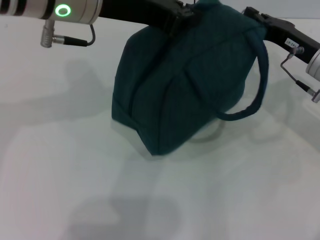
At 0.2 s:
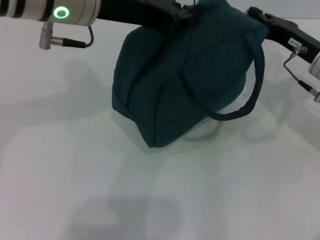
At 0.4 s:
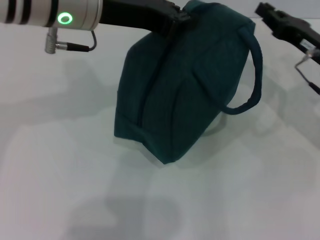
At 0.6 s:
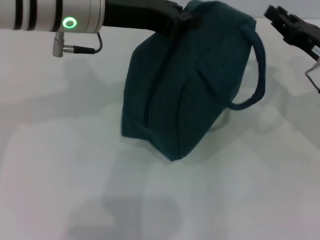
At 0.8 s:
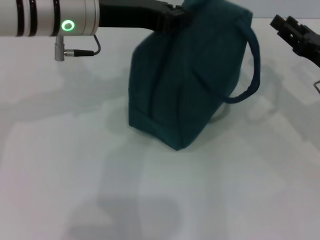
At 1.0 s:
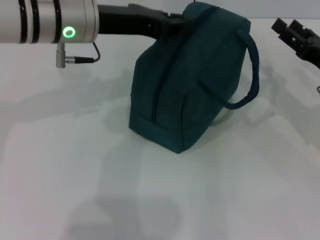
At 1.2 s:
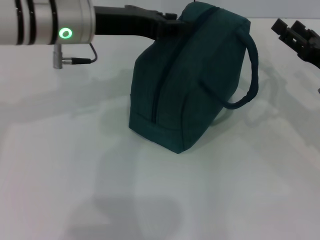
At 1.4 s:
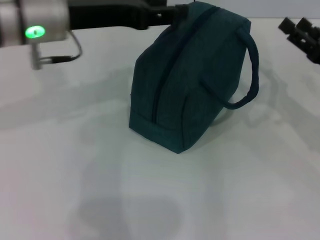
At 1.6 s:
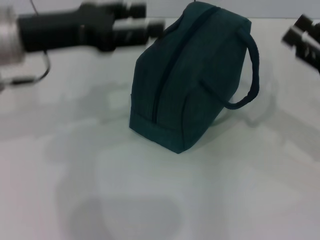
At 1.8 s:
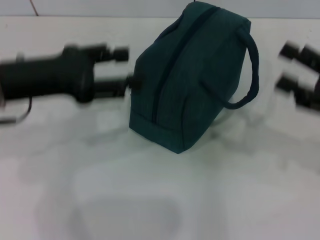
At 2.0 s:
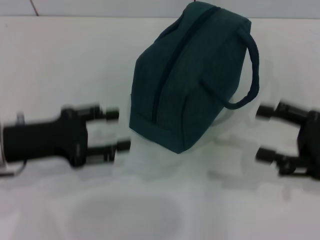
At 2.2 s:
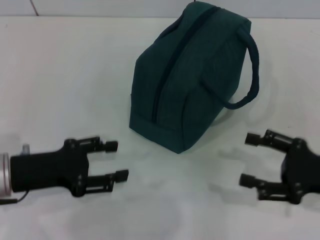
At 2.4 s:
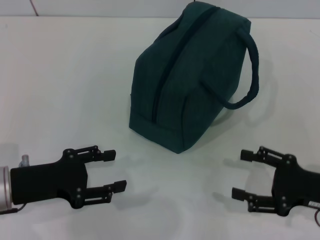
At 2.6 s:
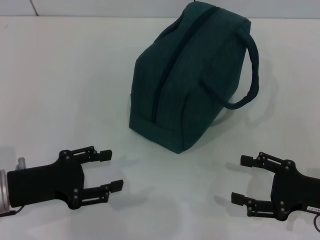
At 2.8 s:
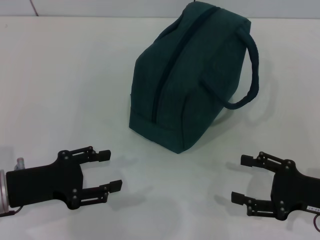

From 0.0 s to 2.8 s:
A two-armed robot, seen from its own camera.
Step, from 0.4 s to 1.0 s: Hold the lunch bag with your left hand.
From 0.0 s to 1.4 s: The right gripper goes some 10 cm backward and to the right, and opens, while the left gripper travels downward by some 5 cm, and opens its fingers.
From 1.4 s to 2.8 s: The left gripper shifts approximately 25 cm downward, backward and to the left, and opens, while the right gripper moves backward and downward, about 10 cm.
